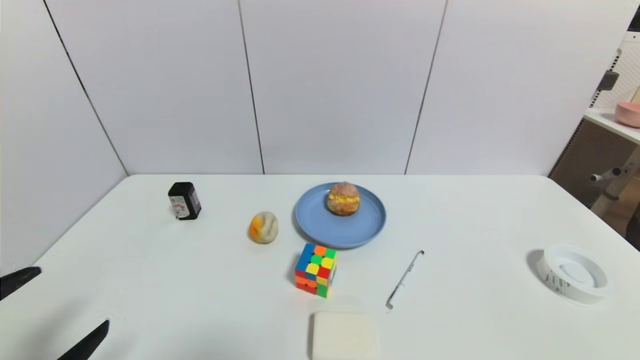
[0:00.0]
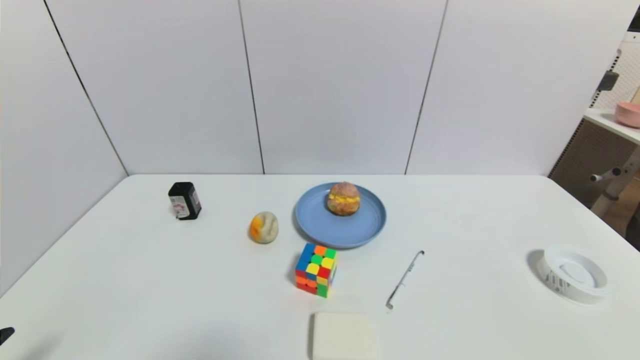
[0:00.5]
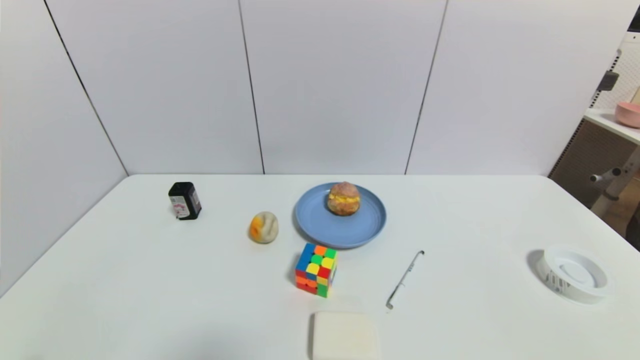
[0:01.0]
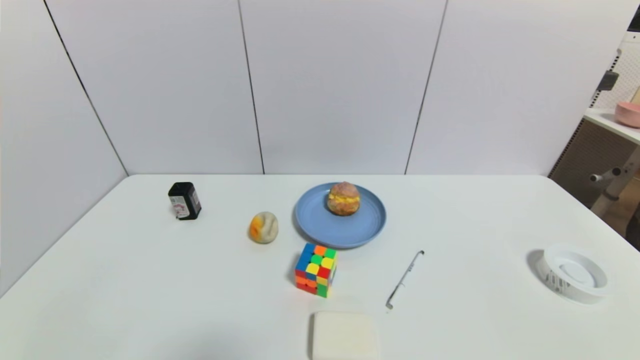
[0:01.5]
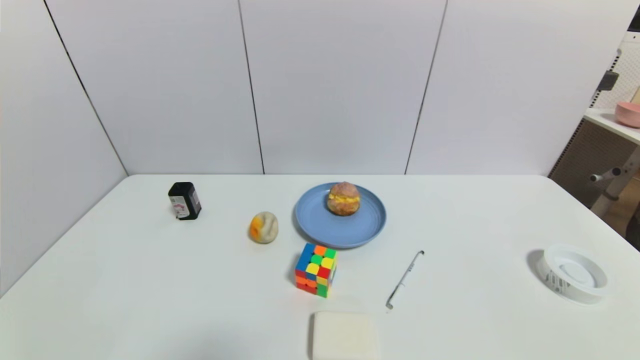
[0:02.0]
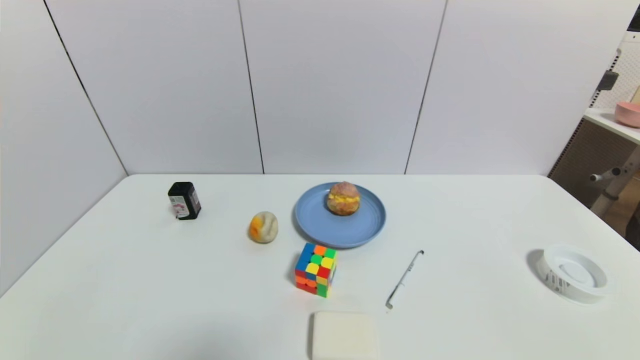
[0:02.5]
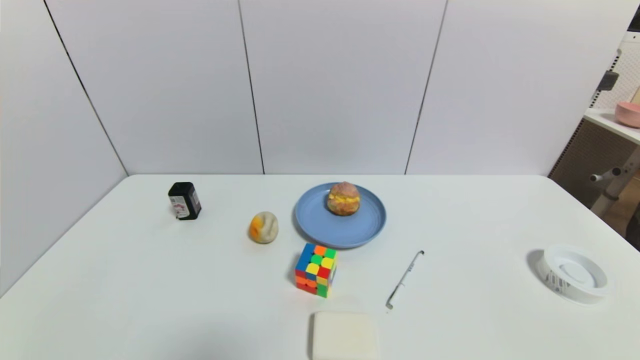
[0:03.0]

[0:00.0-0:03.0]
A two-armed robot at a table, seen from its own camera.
Task of the whole recording: use a gripper to pick the target object and place on the blue plate.
0:00.0 to 0:01.5: The left gripper moves downward and backward, roughly 10 cm.
